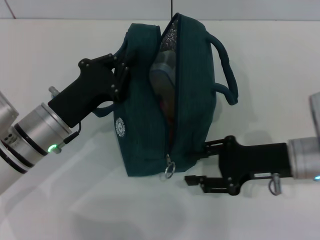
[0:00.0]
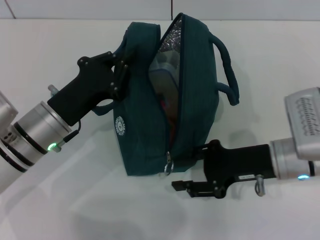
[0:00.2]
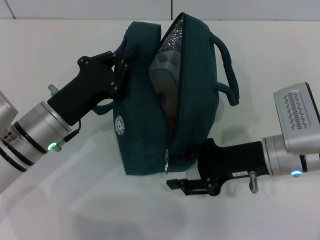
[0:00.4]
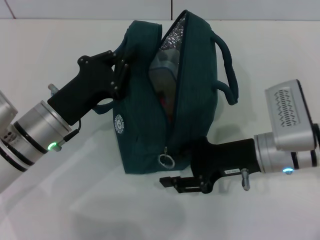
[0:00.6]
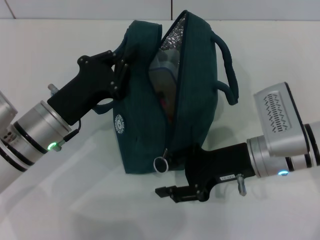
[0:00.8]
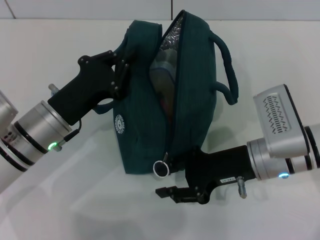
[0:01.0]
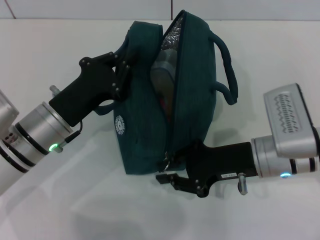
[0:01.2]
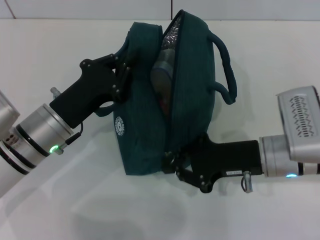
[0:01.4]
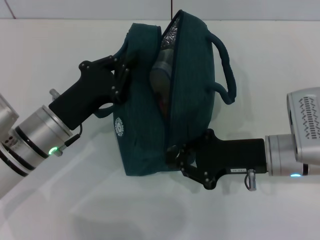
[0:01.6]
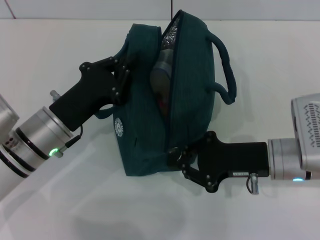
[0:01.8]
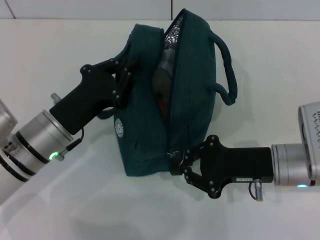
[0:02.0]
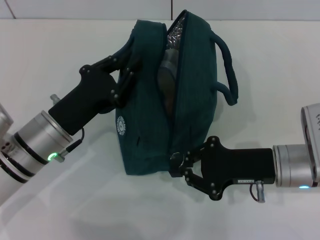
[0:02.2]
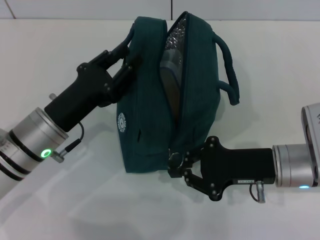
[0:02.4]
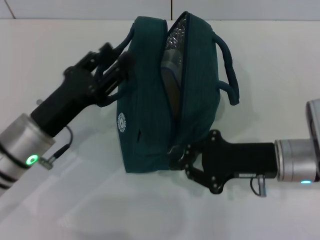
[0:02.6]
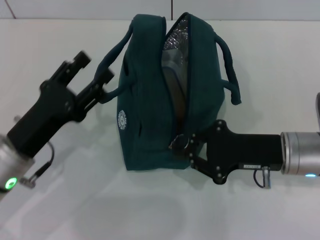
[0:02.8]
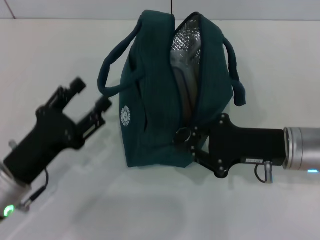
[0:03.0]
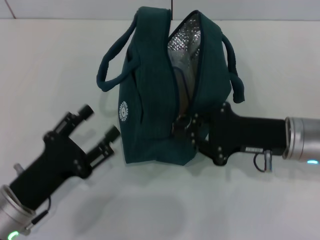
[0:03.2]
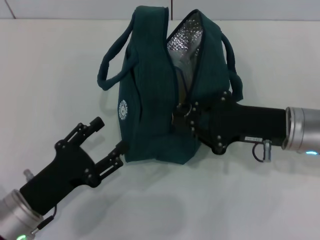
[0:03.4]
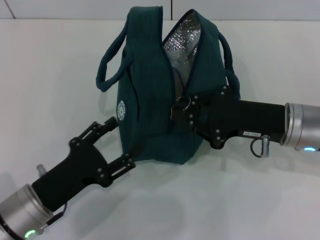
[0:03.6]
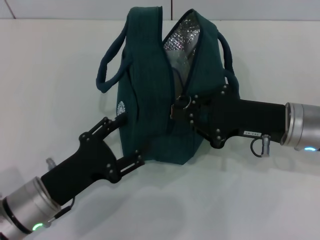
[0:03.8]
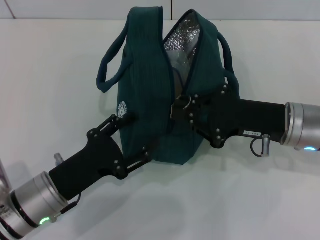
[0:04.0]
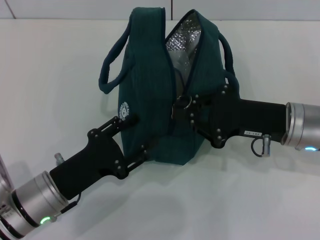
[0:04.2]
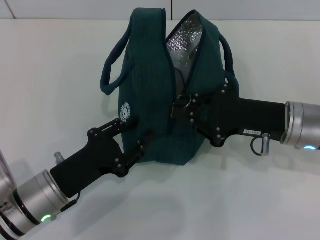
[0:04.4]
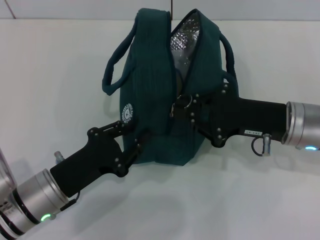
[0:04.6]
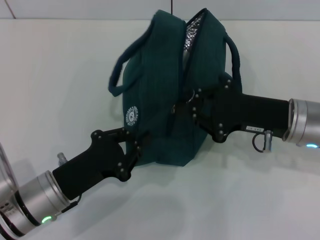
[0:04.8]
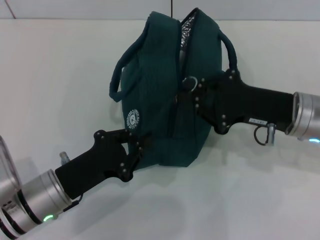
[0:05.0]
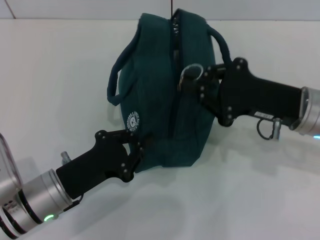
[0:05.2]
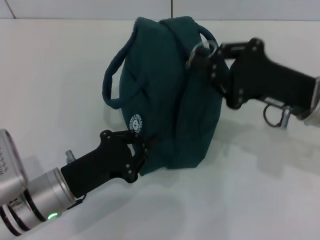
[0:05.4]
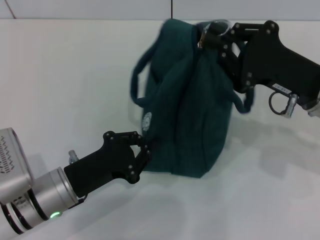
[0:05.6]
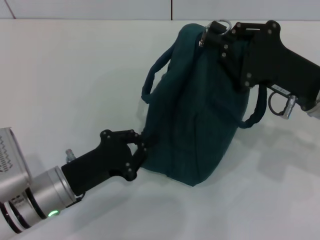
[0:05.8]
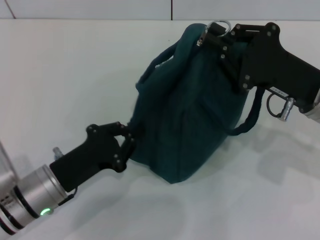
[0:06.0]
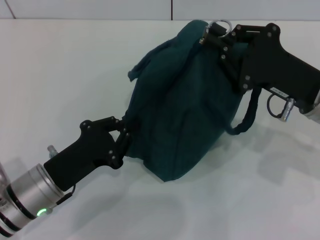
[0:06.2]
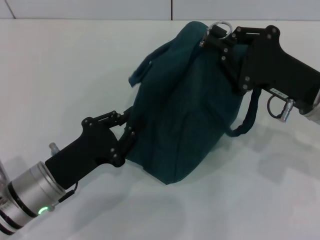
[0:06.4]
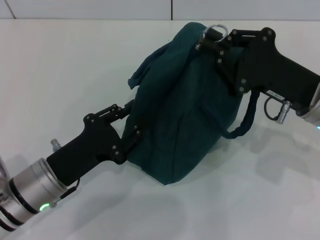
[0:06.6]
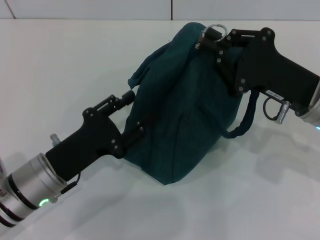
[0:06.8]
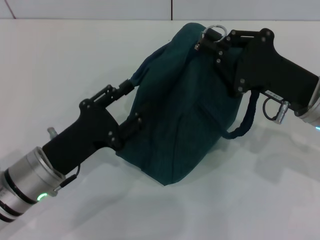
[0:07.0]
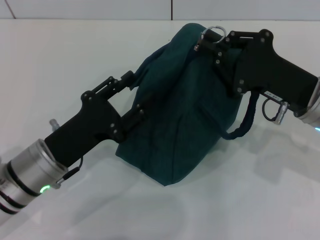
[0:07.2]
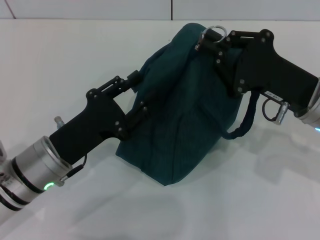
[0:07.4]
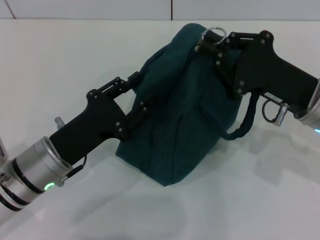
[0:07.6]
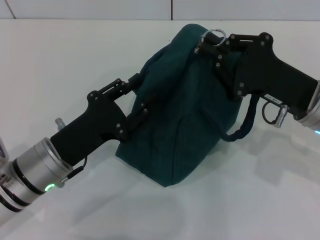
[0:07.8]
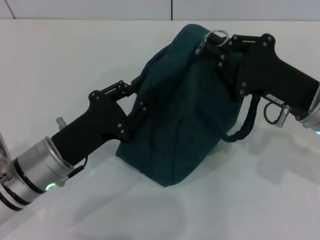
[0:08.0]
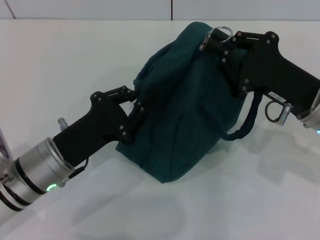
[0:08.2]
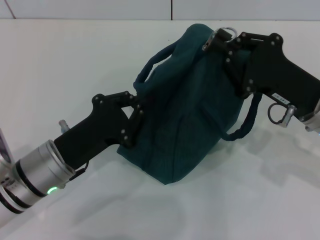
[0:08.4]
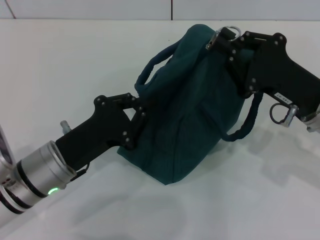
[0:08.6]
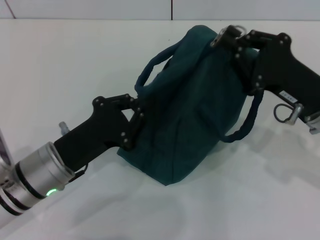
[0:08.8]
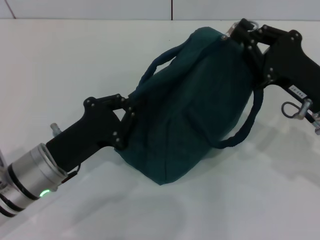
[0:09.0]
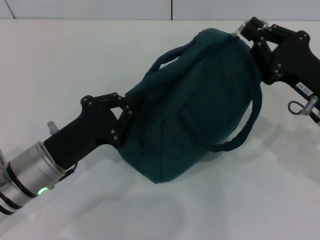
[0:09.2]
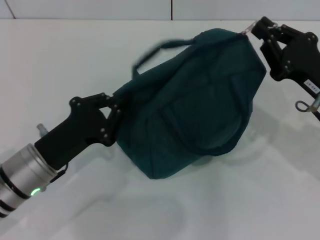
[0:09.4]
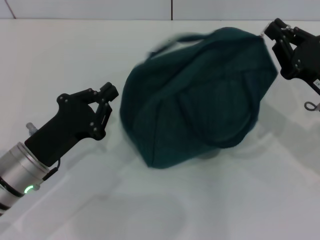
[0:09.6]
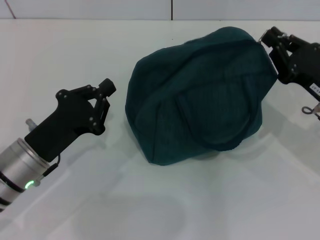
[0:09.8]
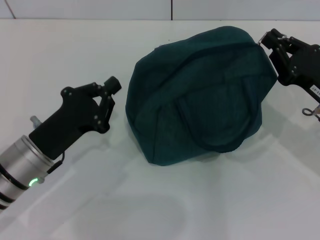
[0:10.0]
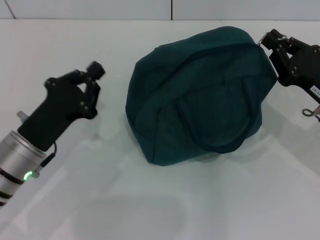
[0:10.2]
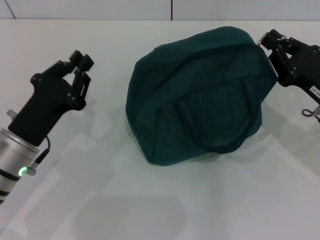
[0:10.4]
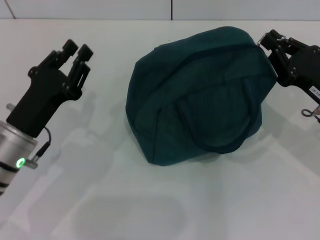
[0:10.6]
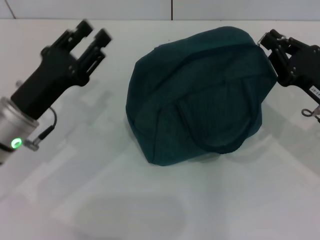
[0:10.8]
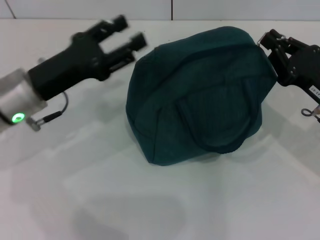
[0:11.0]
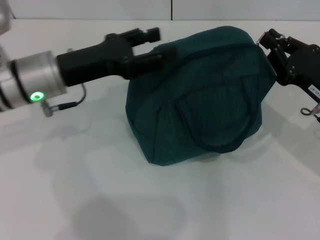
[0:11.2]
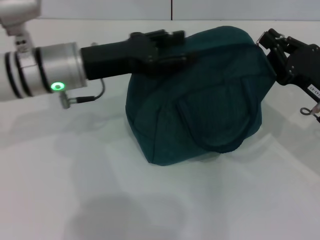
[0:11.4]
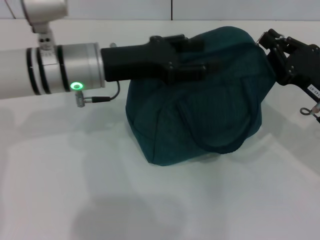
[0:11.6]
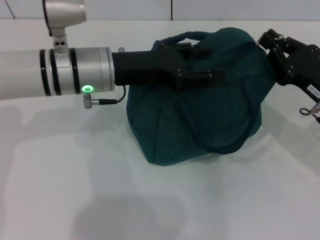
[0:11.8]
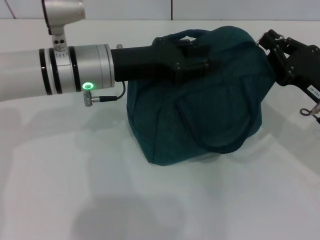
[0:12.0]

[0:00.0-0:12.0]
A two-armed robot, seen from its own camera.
Step, 0:00.0 to 0:02.2: Hold the lunch bag with your left hand.
0:00.0 to 0:01.6: The right gripper closes its fingers.
0:01.6 to 0:03.0: The left gripper goes some 10 cm backward, and opens its fingers.
0:04.4 to 0:06.0: The left gripper closes its fingers.
0:06.0 to 0:07.6: The left gripper opens up.
0:07.6 to 0:09.0: The left gripper closes up.
0:10.4 to 0:12.0: The left gripper heads forward, to the right and upward, covering approximately 15 cm, and opens its fingers.

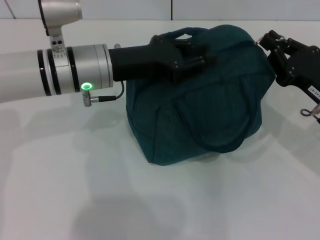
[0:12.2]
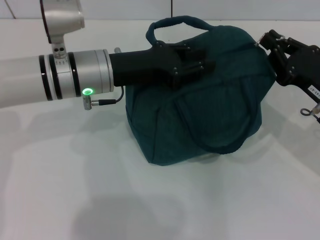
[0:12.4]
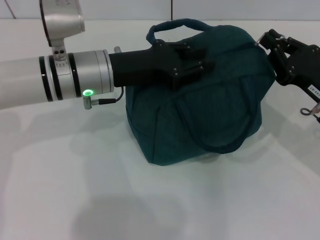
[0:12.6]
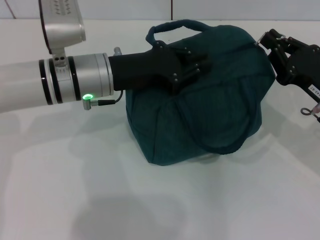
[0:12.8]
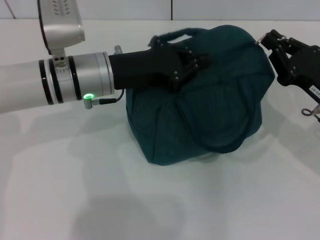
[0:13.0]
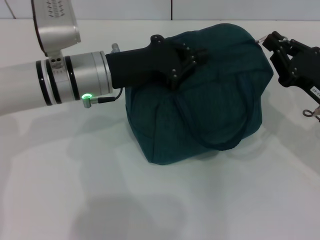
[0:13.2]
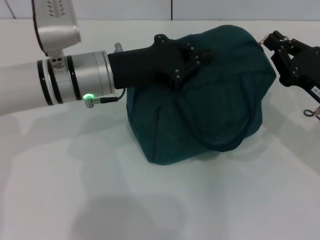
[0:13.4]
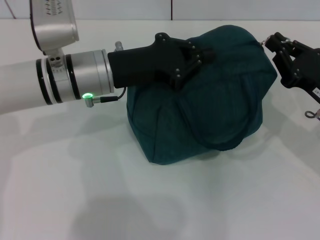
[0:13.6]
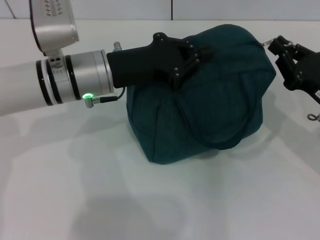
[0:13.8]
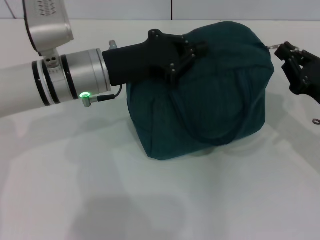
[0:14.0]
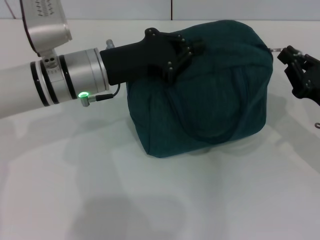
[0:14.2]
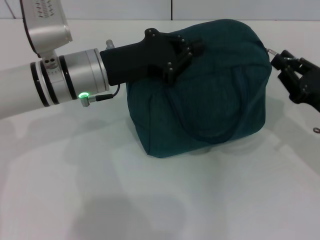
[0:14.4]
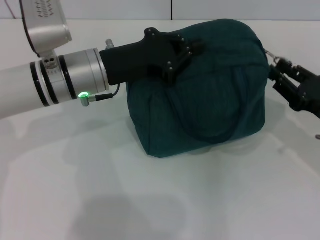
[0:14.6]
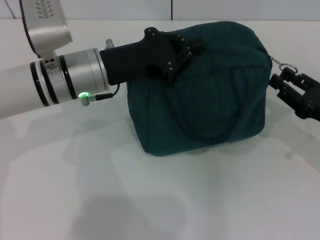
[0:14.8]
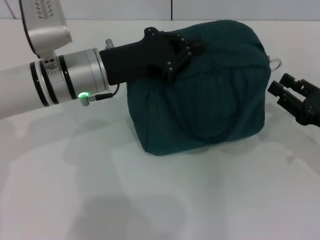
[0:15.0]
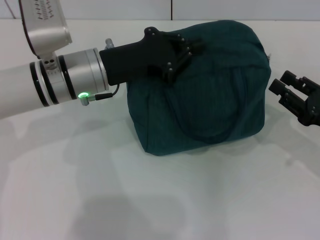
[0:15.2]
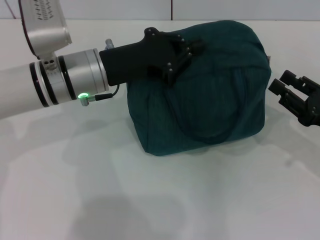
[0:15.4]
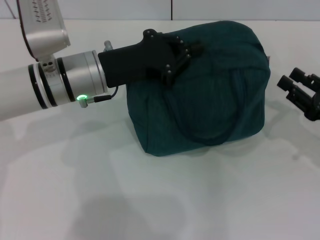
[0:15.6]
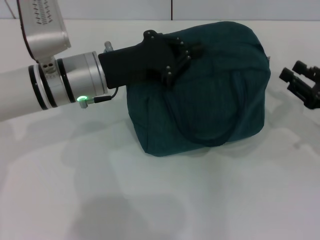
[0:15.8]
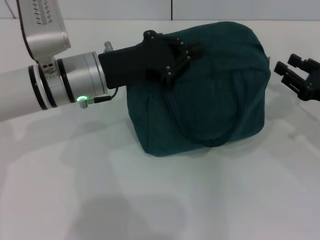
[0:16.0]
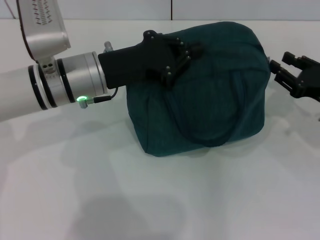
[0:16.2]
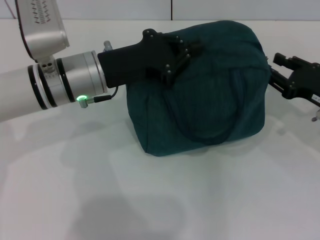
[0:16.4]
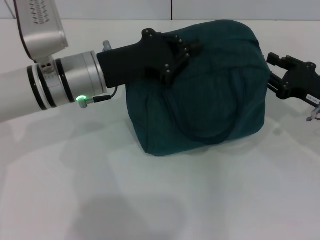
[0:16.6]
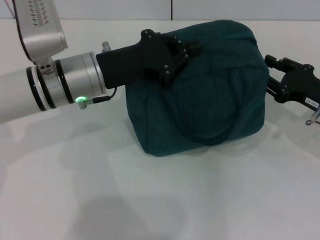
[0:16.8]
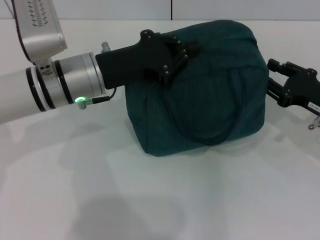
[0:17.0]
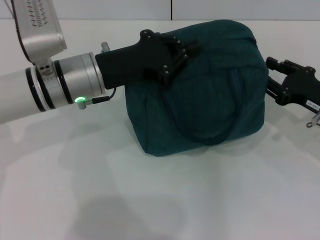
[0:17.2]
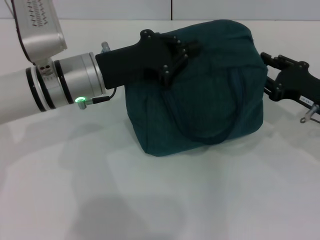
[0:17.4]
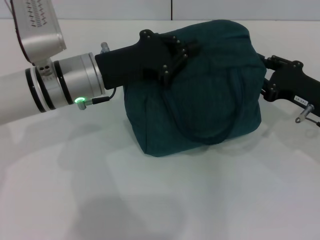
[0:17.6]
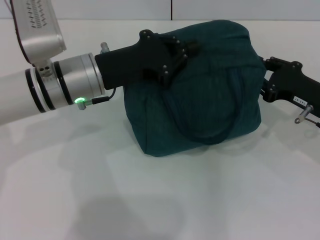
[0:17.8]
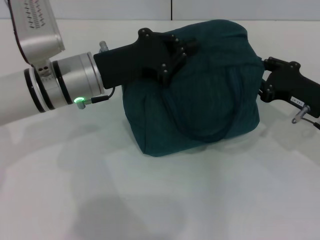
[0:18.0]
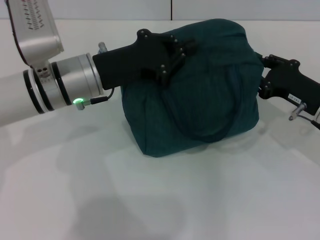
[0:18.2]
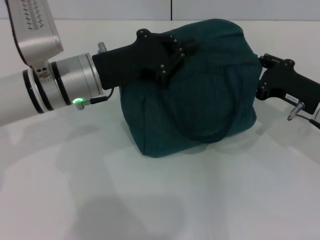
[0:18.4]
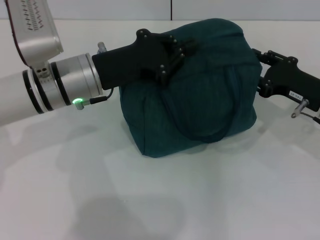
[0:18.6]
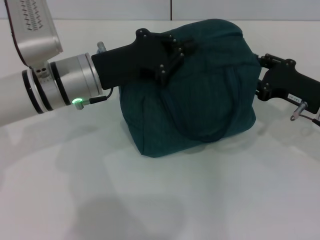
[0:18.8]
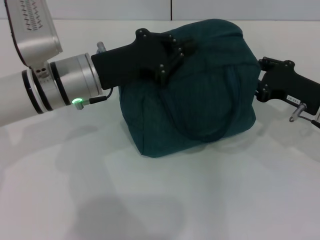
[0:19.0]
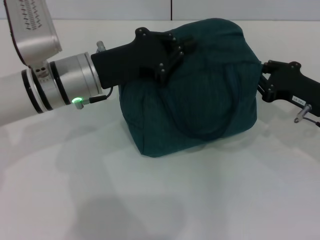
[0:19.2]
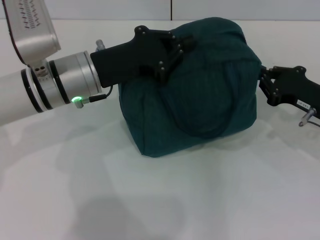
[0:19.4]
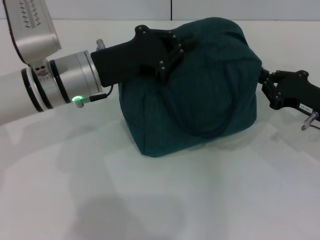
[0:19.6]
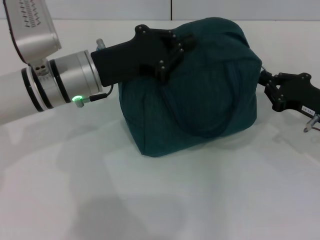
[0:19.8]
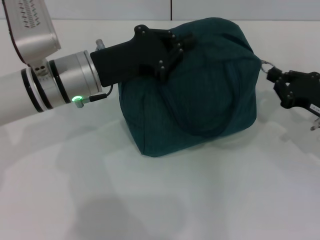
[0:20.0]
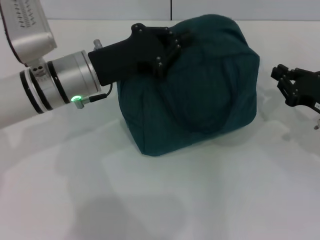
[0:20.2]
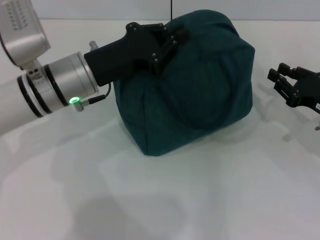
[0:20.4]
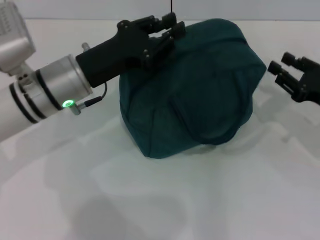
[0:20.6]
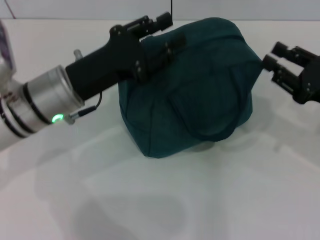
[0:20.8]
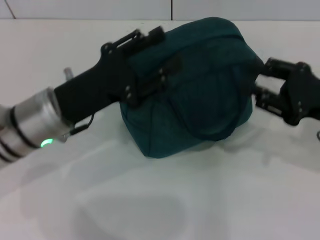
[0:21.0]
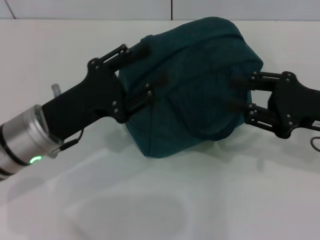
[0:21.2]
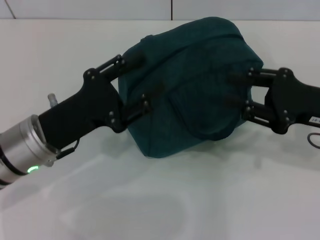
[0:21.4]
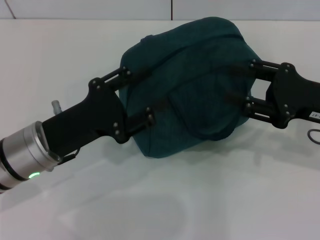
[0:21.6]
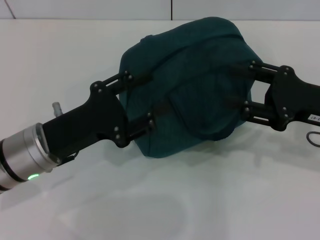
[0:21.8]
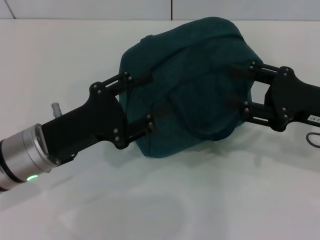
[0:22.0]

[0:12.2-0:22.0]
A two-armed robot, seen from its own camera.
Step, 0:12.2 to 0:20.2: Zip up the lunch bag with your right hand.
0:12.2 to 0:13.6: The left gripper closes.
0:13.6 to 0:15.0: The right gripper ends up about 5 cm from where it was, and opens.
0:15.0 to 0:16.4: The right gripper heads forward, covering roughly 5 cm.
0:16.4 to 0:17.8: There are only small adjustments of the grippers.
0:17.8 to 0:19.2: Both grippers stay about where they are.
0:19.2 to 0:20.6: The grippers stay close to where they were, moving slightly.
0:20.6 to 0:22.0: The left gripper travels backward by roughly 10 cm, and opens its fingers; the right gripper is displaced upward by roughly 5 cm, and opens its fingers.
